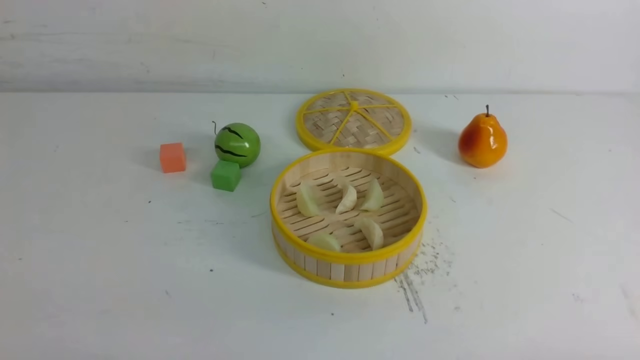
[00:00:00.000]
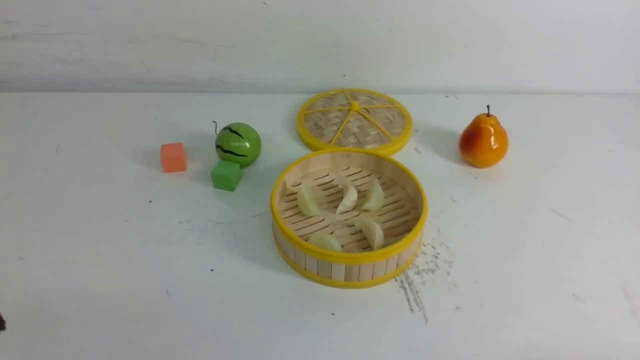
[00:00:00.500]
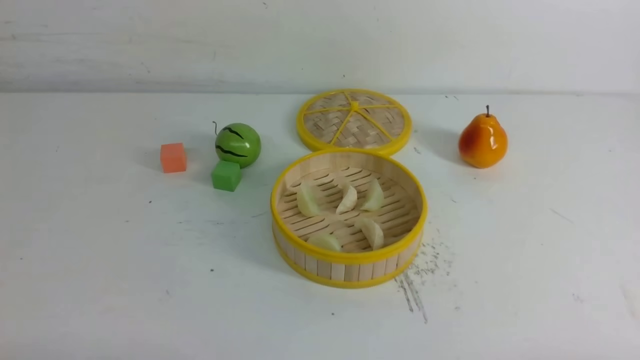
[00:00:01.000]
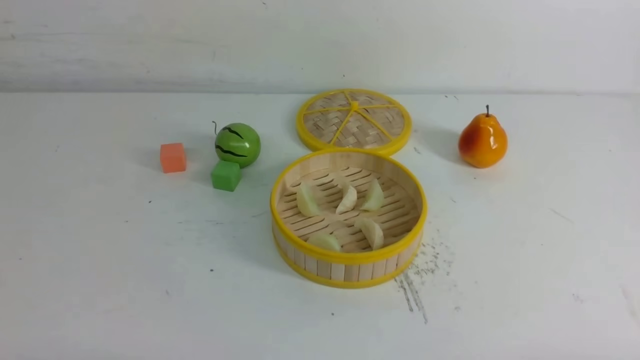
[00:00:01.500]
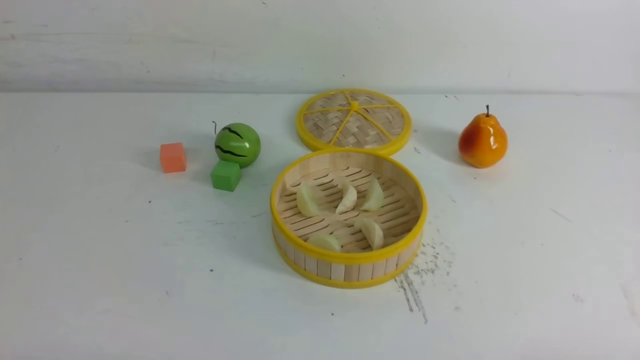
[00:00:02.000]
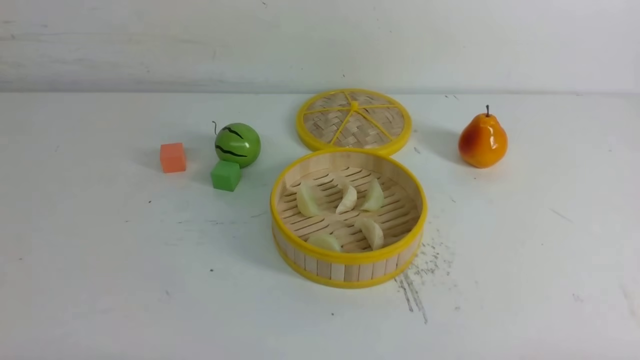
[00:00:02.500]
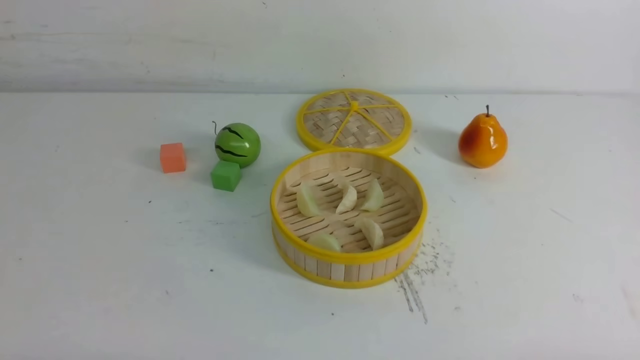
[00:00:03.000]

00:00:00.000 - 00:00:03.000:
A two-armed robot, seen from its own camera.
Task of the whole recording: put the dumplings into the steamer on the white table.
00:00:01.500 - 00:00:03.000: Neither gripper changes place.
